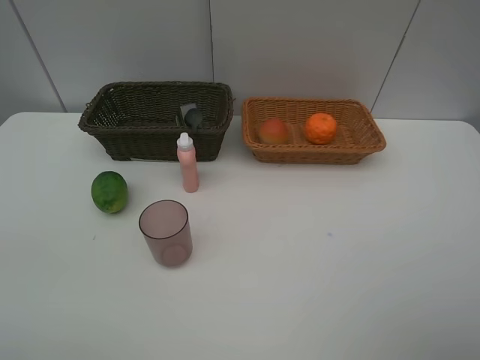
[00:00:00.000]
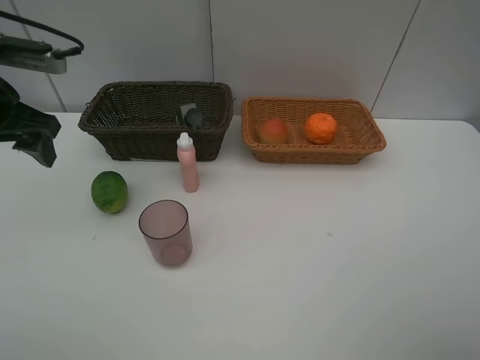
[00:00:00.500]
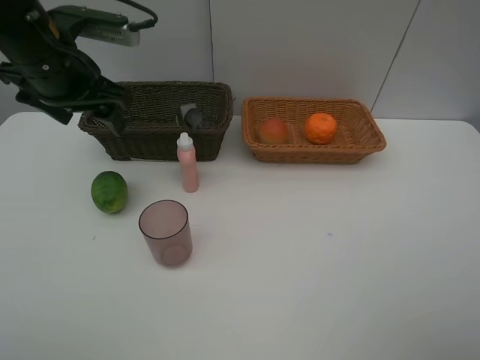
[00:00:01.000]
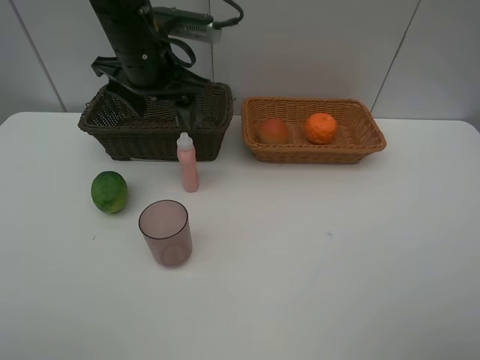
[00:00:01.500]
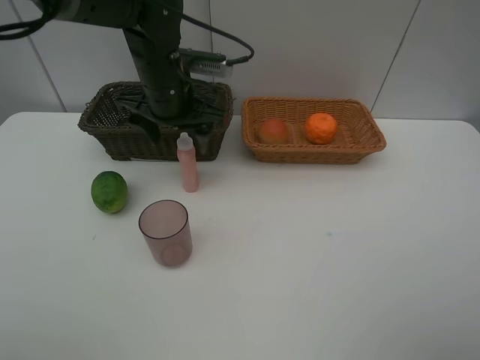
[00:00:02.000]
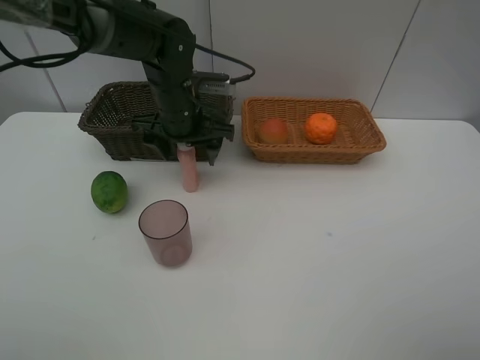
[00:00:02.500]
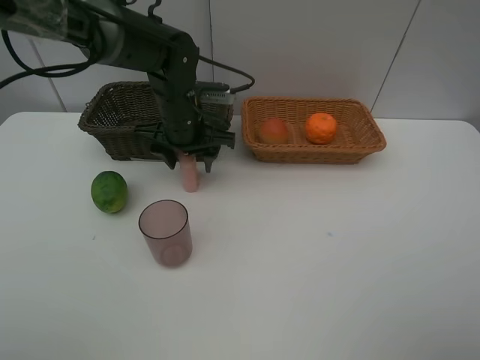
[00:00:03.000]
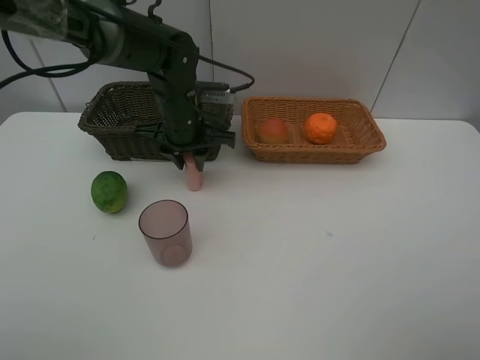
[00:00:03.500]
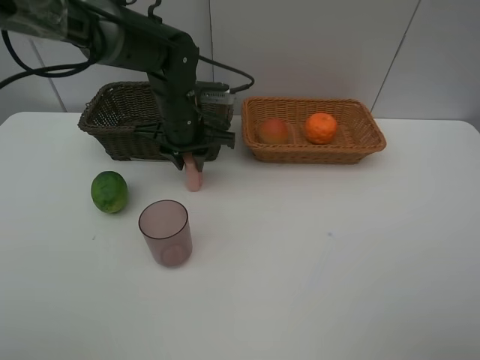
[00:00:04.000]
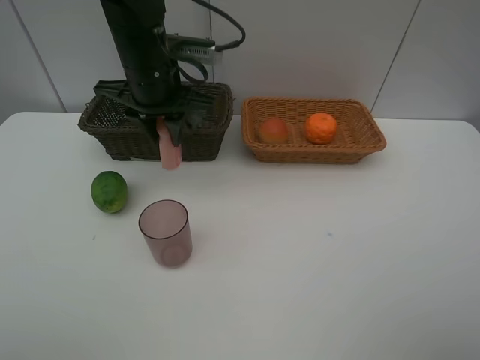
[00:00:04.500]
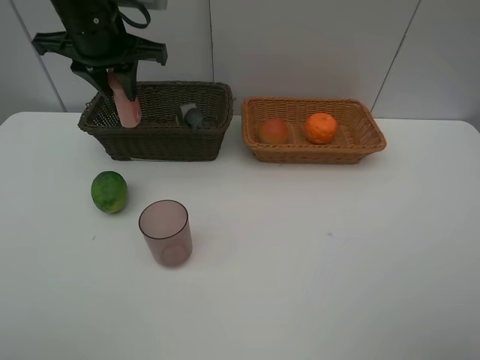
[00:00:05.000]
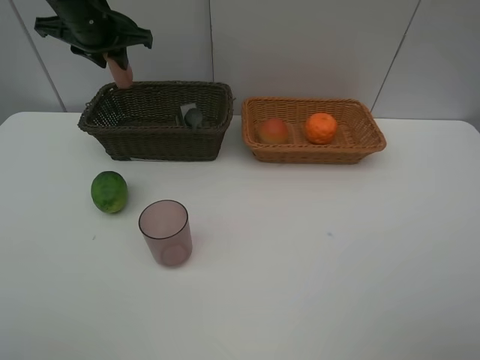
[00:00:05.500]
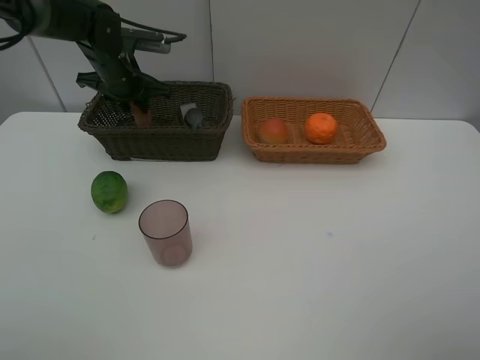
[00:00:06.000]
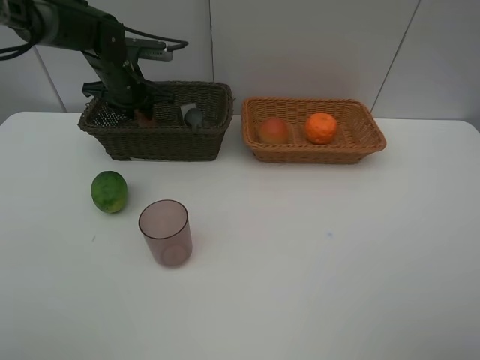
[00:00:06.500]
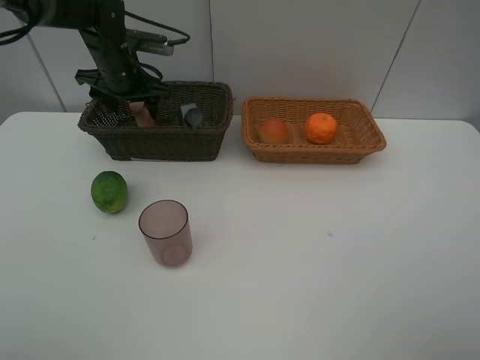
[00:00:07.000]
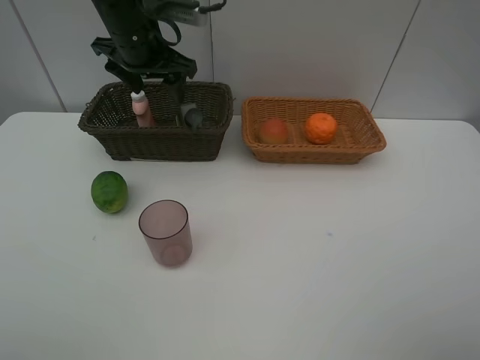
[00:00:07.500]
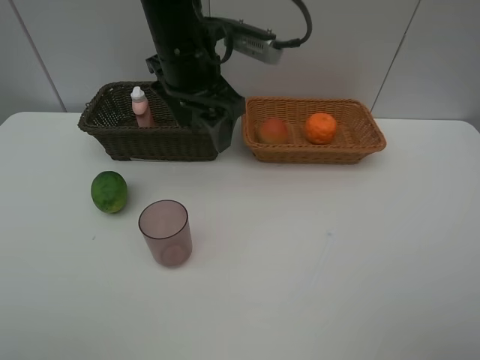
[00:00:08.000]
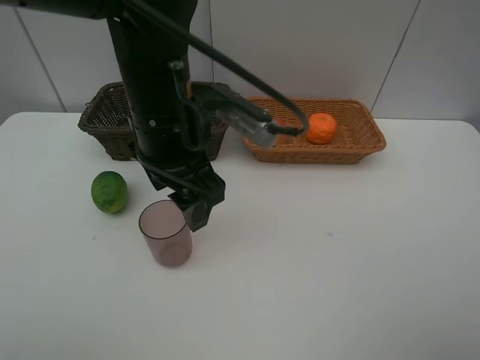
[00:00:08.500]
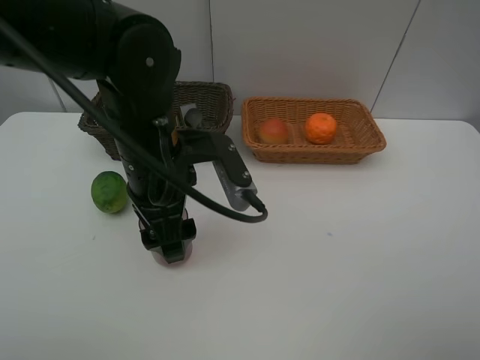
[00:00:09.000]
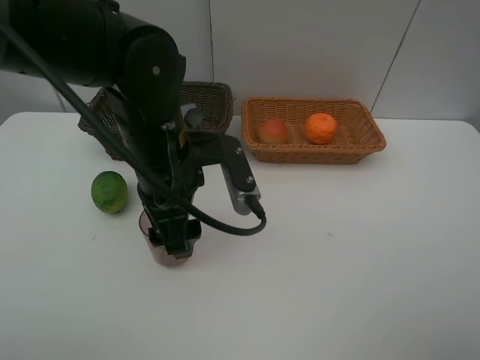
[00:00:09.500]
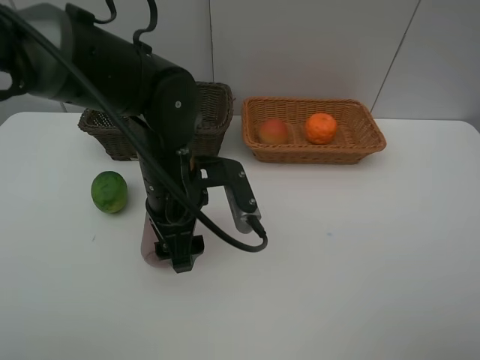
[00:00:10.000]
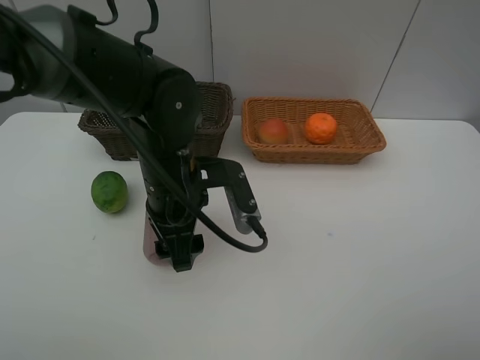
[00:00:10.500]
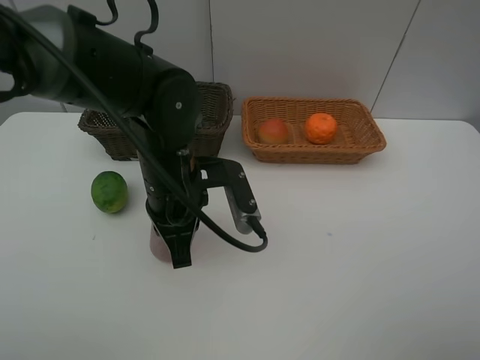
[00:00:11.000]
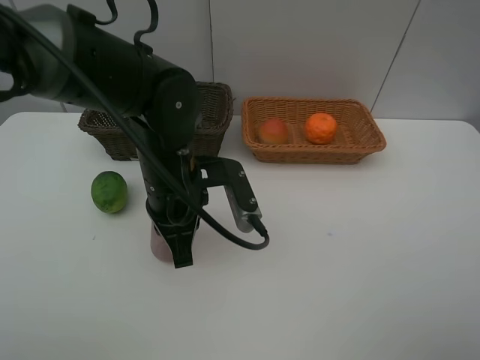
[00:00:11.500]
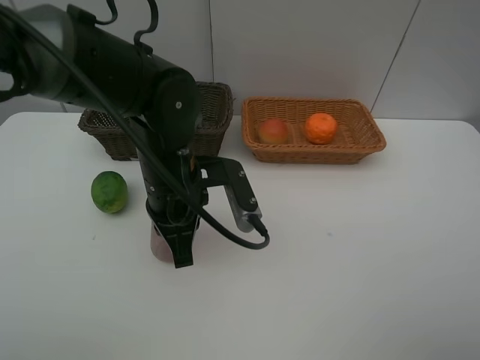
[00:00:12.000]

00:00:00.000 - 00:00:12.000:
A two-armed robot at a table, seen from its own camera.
Task of the whole recording: place multiple objects separately in different baskets.
00:00:00.000 - 00:00:02.000: The left gripper travels to the right, forward and downward by approximately 30 cm.
00:00:02.000 - 00:00:04.000: The left gripper is displaced downward by roughly 5 cm, and closes.
00:00:04.000 - 00:00:06.000: The left gripper travels to the left and forward by approximately 15 cm, and travels upward and back again, about 15 cm each way.
00:00:06.000 - 00:00:08.000: The left gripper goes some 20 cm to the right, backward and upward, and opens up.
00:00:08.000 - 00:00:10.000: The left gripper moves downward and backward, about 15 cm.
00:00:10.000 - 00:00:12.000: The left gripper closes.

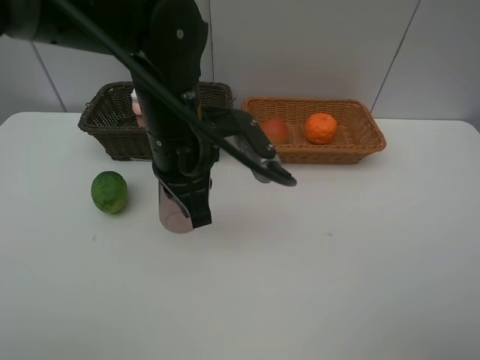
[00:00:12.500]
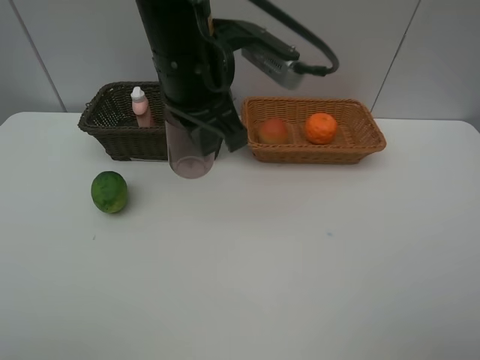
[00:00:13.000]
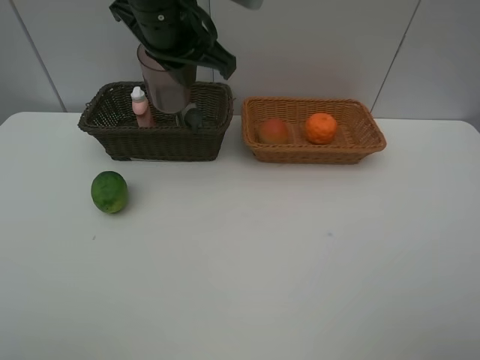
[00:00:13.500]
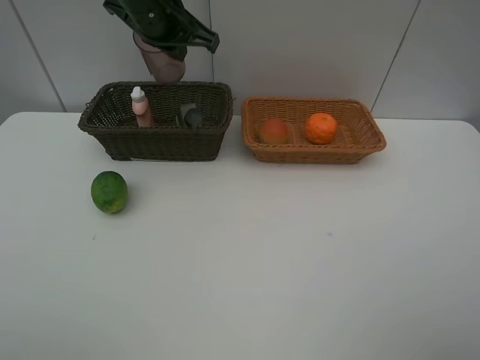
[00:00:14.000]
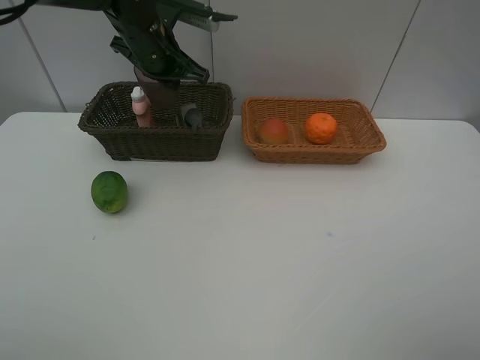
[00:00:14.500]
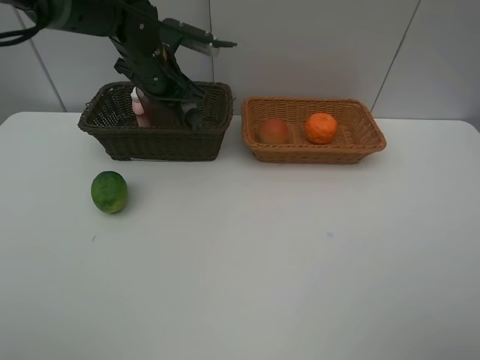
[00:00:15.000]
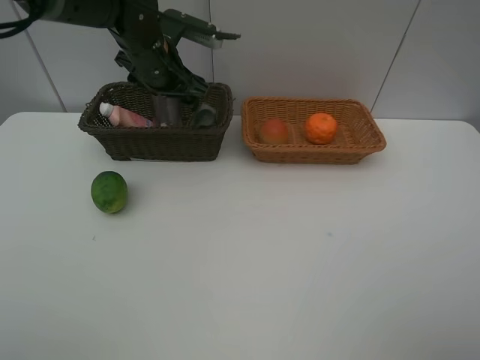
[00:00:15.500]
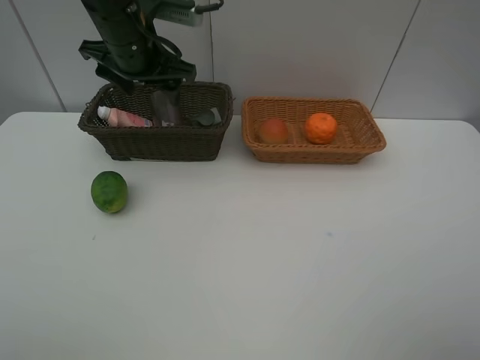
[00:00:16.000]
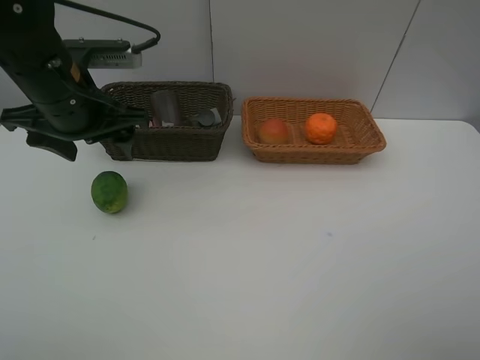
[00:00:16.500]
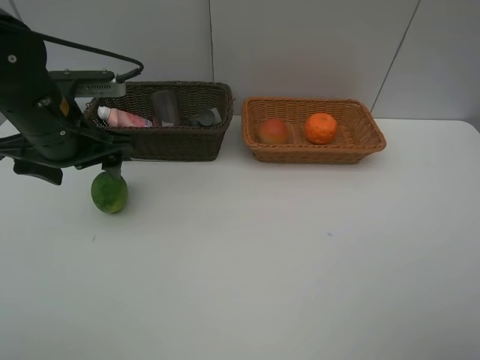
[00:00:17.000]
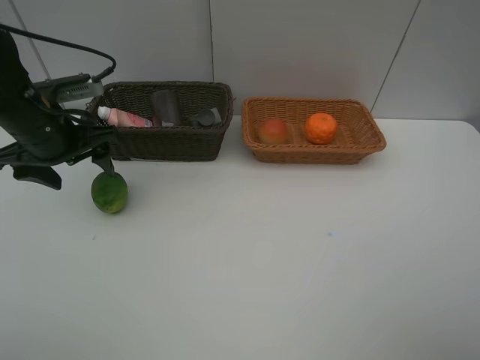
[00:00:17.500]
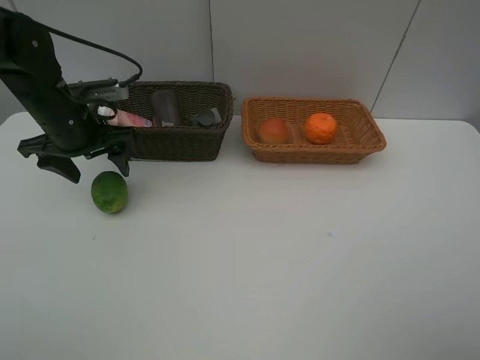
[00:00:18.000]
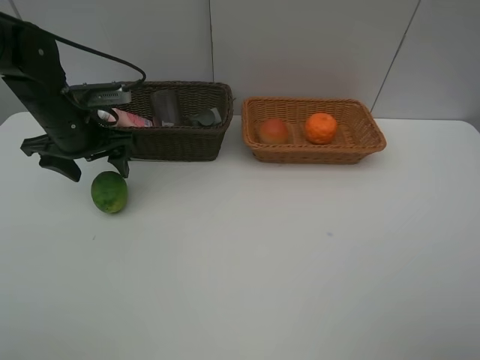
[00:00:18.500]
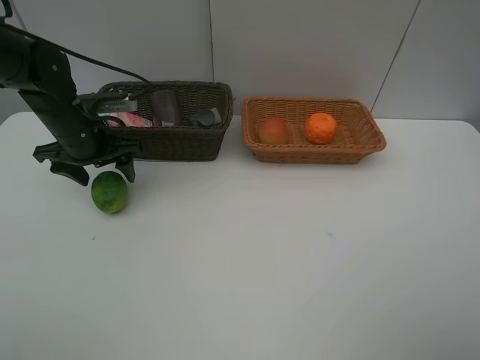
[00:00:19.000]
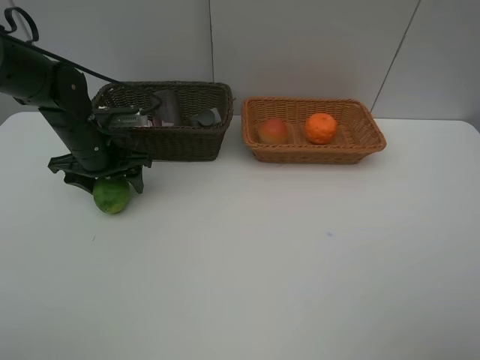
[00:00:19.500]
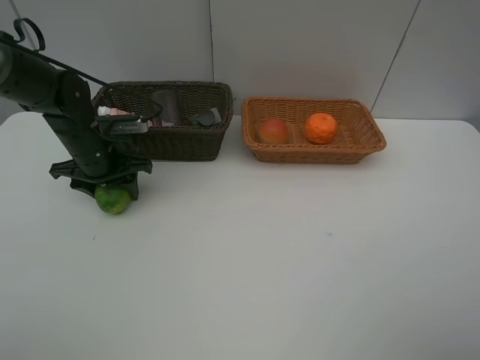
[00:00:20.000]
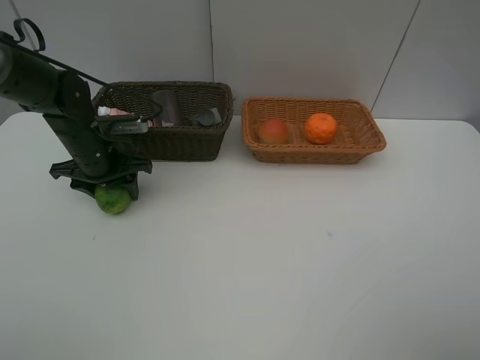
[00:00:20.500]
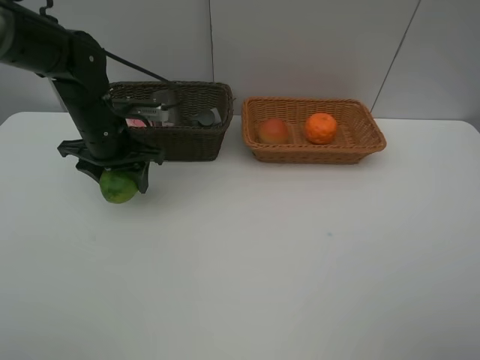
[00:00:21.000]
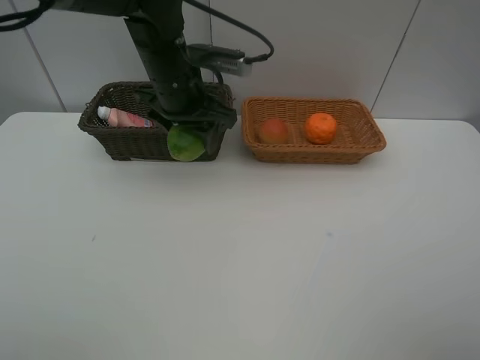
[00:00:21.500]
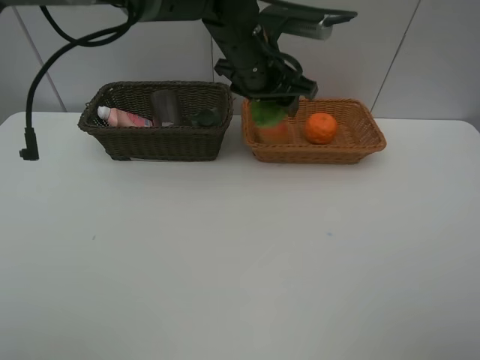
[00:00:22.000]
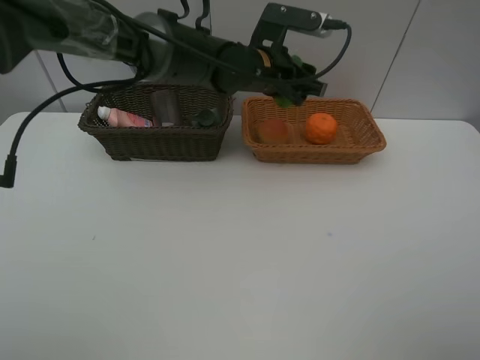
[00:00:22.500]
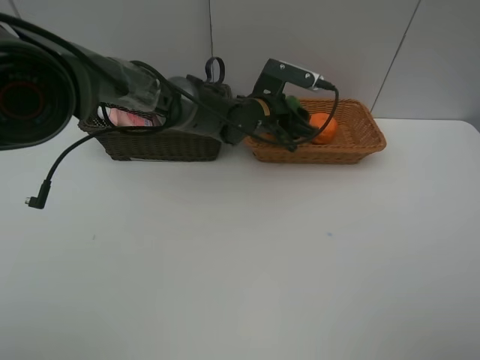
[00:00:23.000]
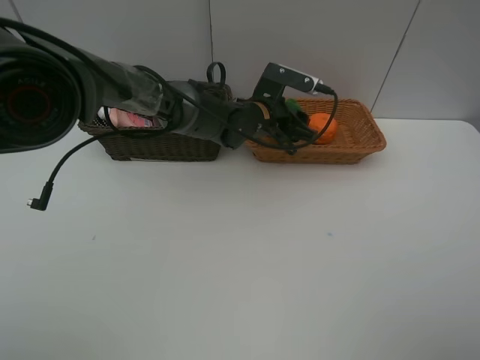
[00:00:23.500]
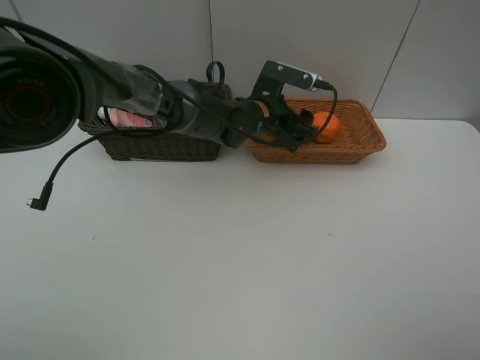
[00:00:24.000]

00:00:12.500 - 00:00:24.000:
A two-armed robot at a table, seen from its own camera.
Task of the whole recording: place multiple objects separately in different baskets.
00:00:12.500 - 00:00:14.500: The left gripper travels forward by some 20 cm.
00:00:14.500 - 00:00:16.500: The left gripper goes approximately 15 cm backward and to the left, and opens up.
00:00:16.500 - 00:00:18.500: The left gripper moves downward, forward and to the left, approximately 10 cm.
00:00:18.500 - 00:00:20.000: The left gripper is displaced downward by approximately 5 cm.
00:00:20.000 - 00:00:22.000: The left gripper moves to the right and upward, some 30 cm.
00:00:22.000 - 00:00:24.000: The left gripper moves downward, about 10 cm.

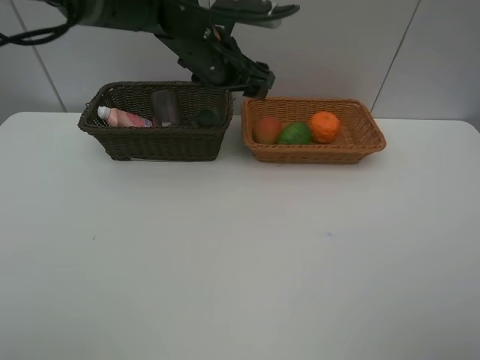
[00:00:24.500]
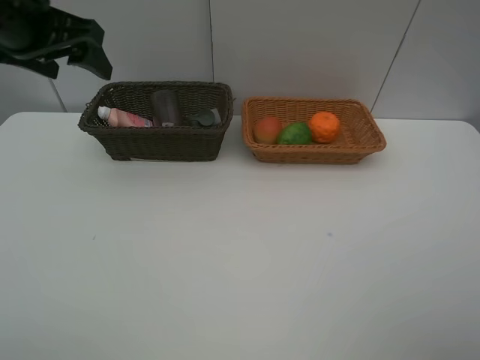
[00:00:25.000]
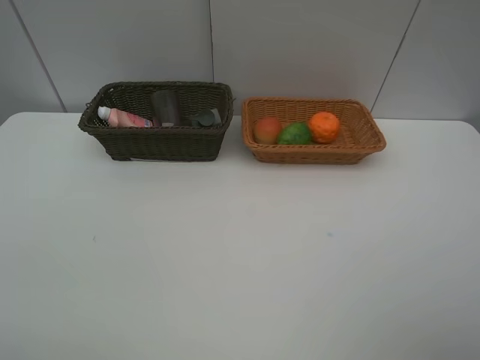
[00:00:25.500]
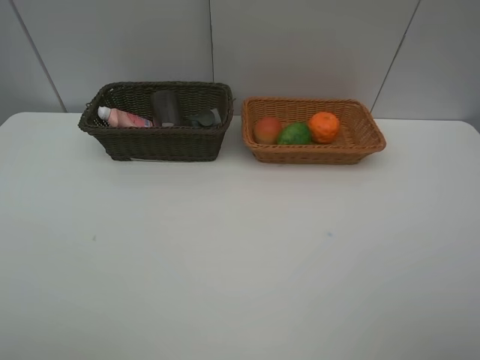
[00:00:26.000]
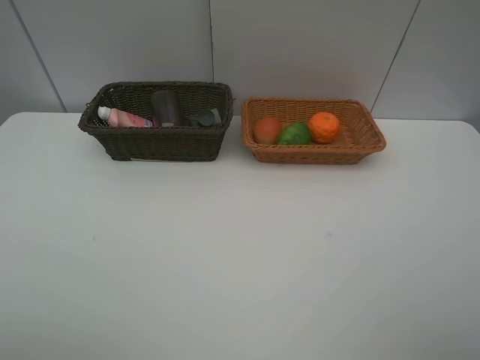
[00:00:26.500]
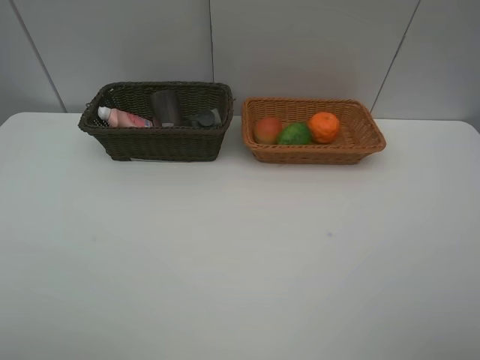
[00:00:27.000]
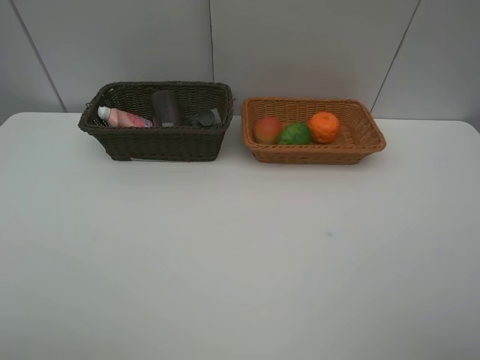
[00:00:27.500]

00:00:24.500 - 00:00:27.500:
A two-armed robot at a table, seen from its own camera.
Task of the whole recording: place multiple objects separately in different baskets.
00:00:24.500 - 00:00:26.000: The left gripper travels backward and to the left by some 50 cm.
